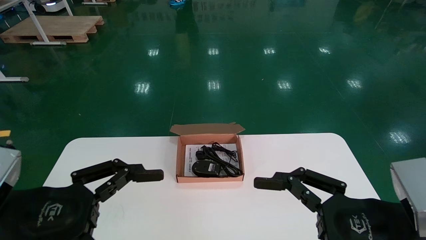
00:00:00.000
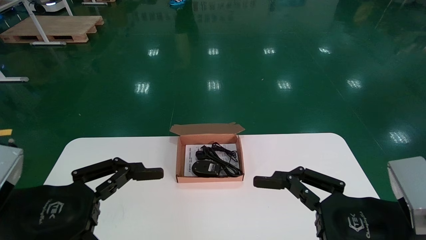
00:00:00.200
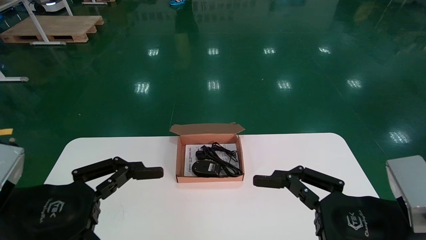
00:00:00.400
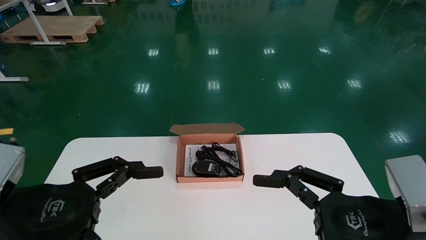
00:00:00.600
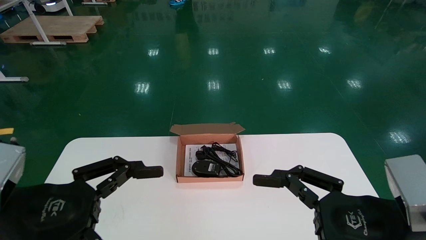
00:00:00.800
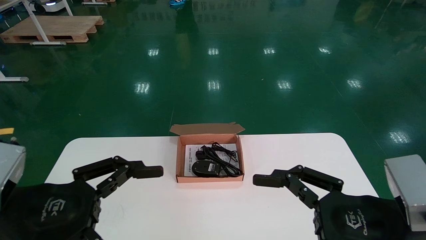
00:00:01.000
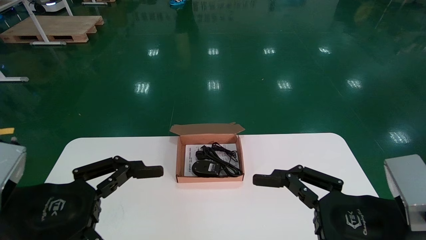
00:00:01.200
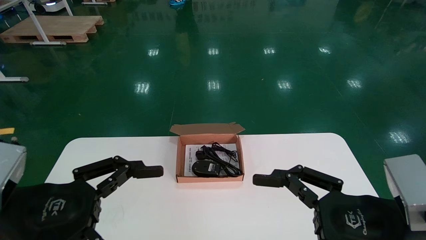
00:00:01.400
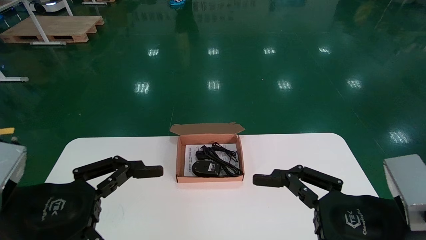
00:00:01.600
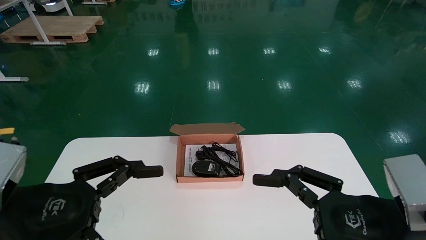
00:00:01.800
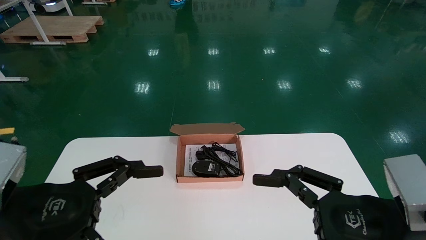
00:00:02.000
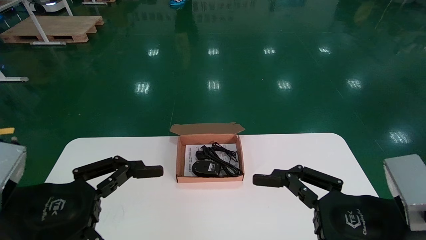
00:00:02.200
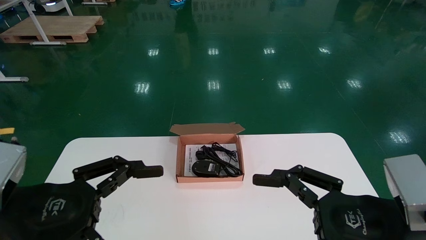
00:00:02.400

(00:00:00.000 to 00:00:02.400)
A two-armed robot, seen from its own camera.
00:00:00.000 - 00:00:02.400: The two grippers keep their place.
